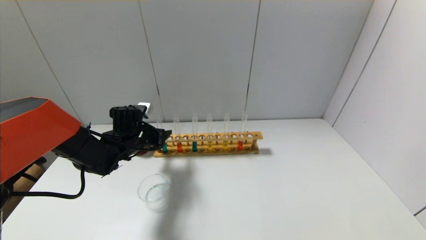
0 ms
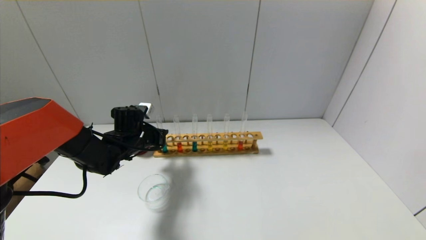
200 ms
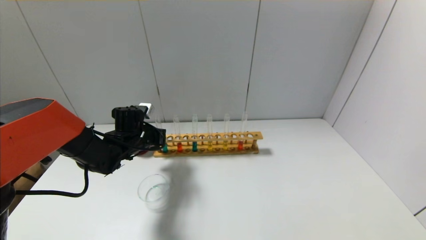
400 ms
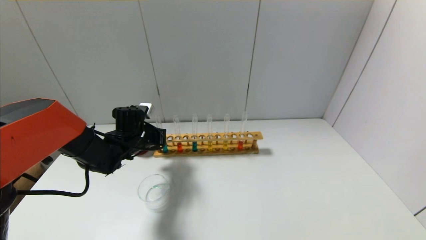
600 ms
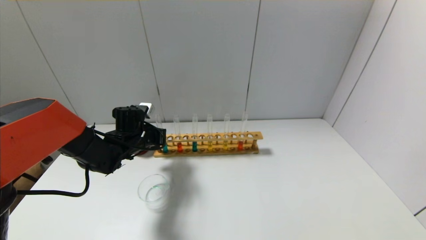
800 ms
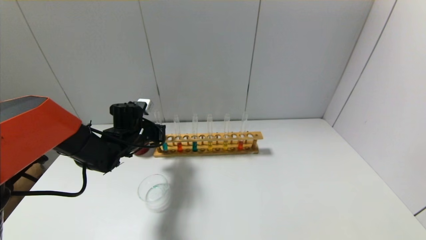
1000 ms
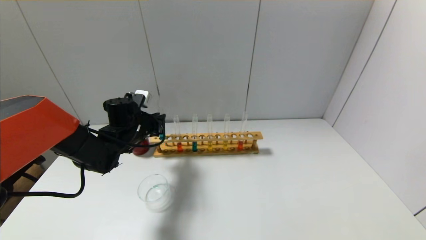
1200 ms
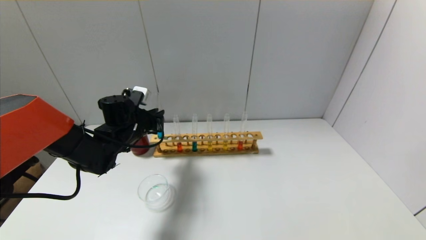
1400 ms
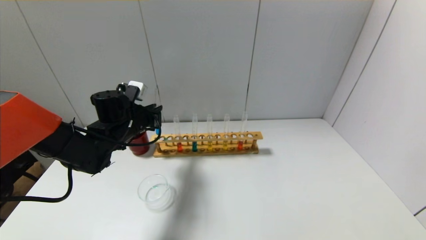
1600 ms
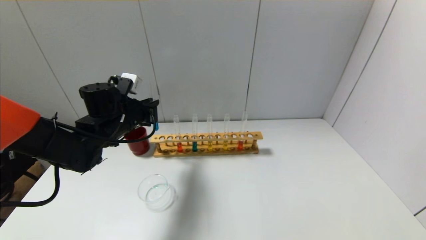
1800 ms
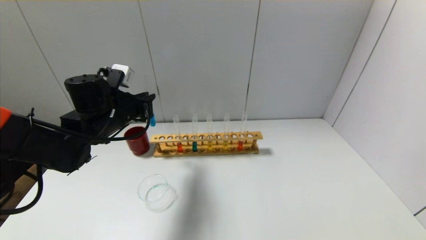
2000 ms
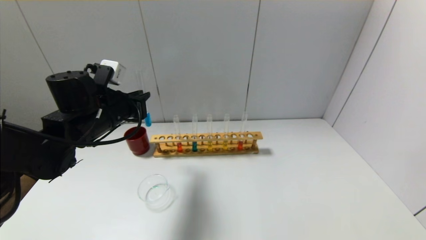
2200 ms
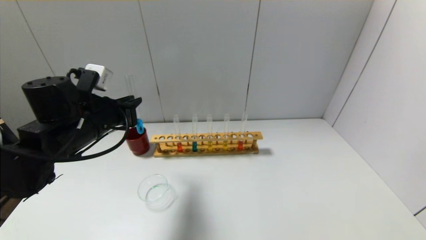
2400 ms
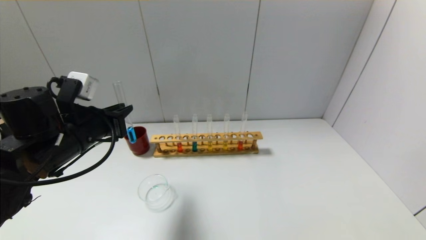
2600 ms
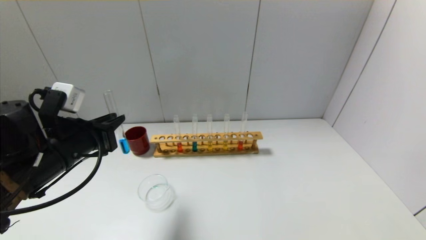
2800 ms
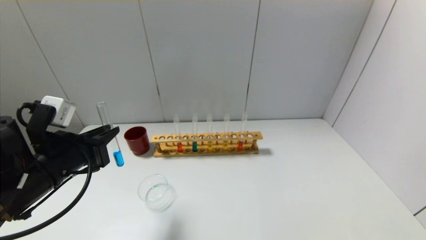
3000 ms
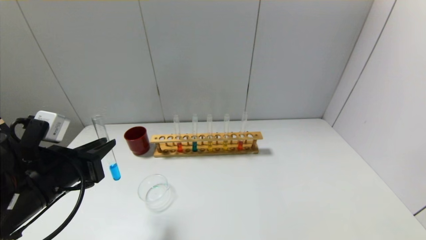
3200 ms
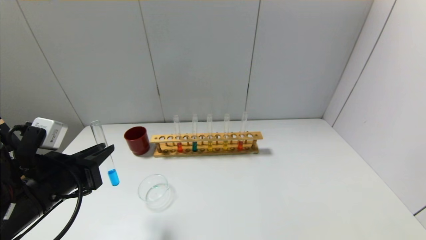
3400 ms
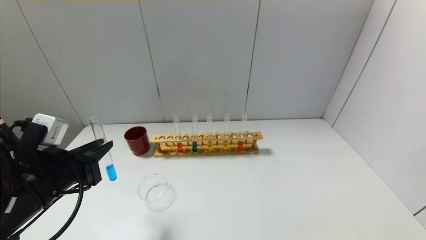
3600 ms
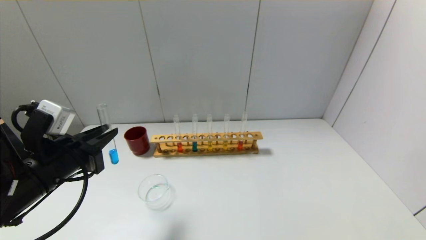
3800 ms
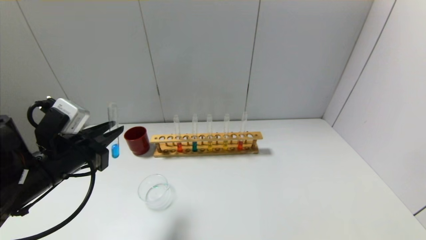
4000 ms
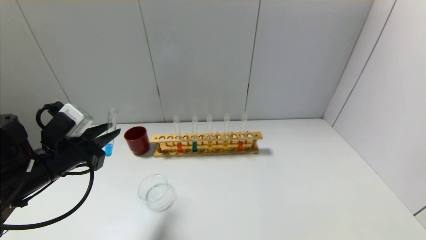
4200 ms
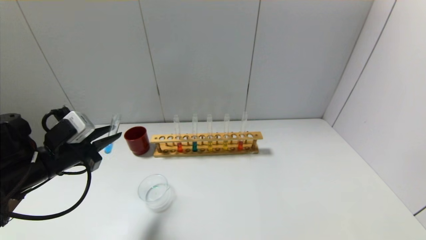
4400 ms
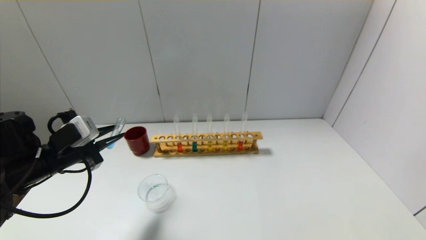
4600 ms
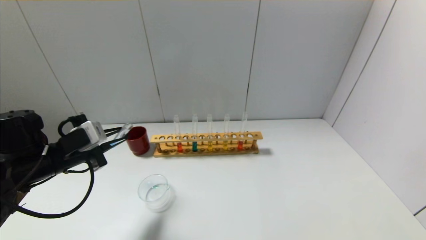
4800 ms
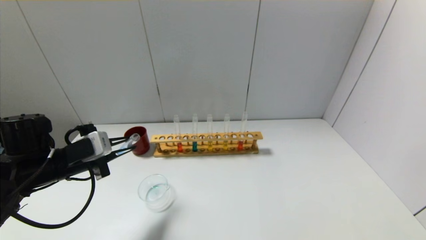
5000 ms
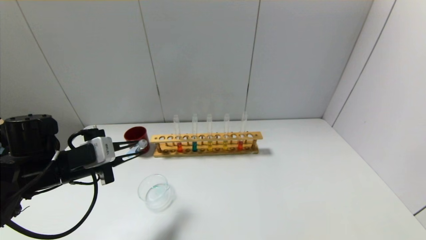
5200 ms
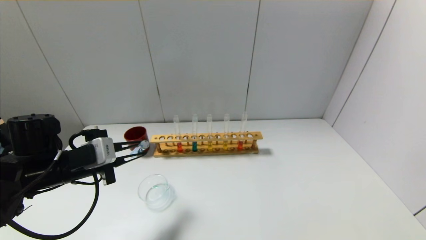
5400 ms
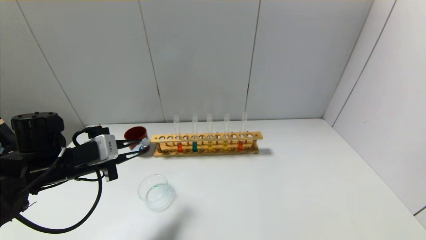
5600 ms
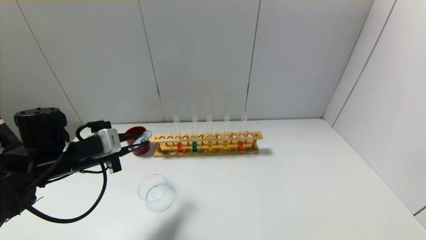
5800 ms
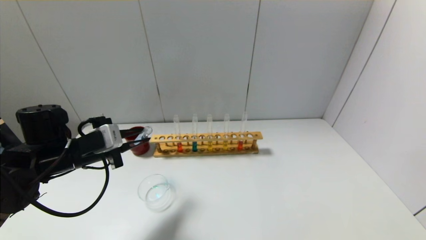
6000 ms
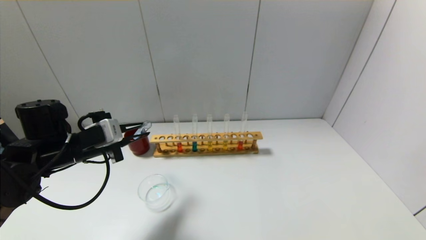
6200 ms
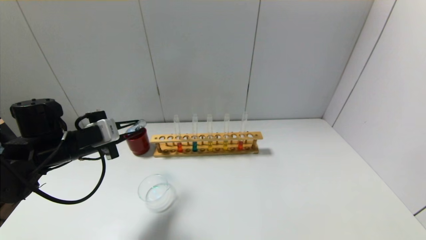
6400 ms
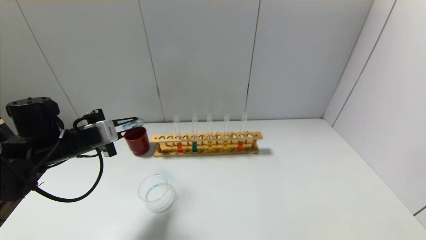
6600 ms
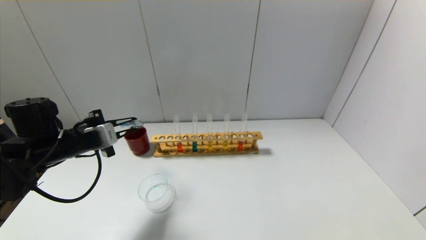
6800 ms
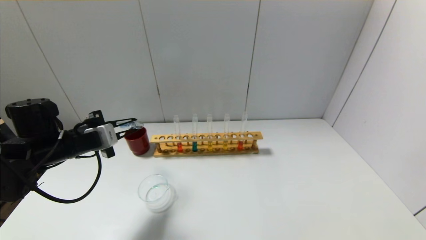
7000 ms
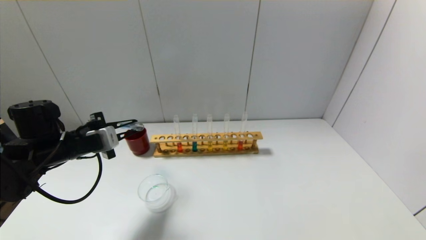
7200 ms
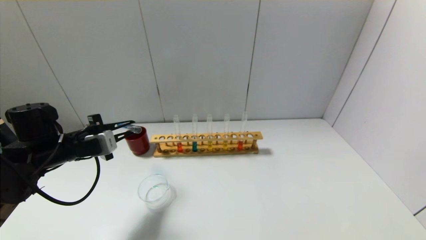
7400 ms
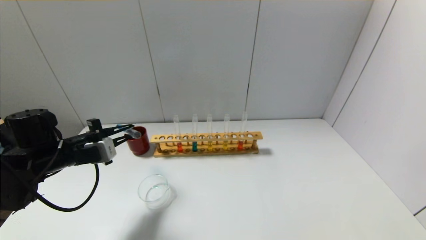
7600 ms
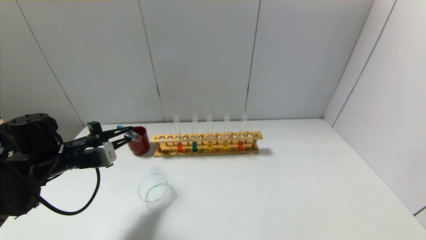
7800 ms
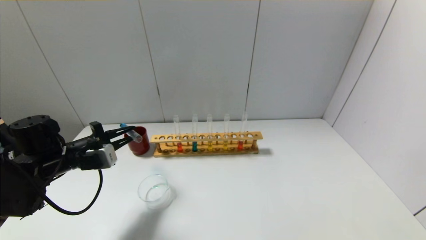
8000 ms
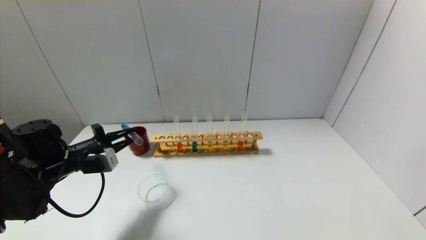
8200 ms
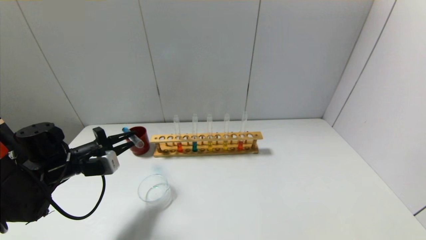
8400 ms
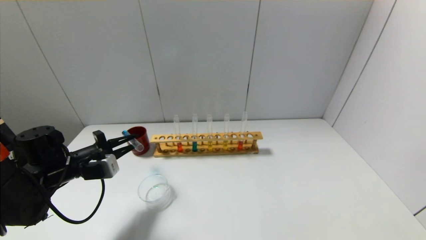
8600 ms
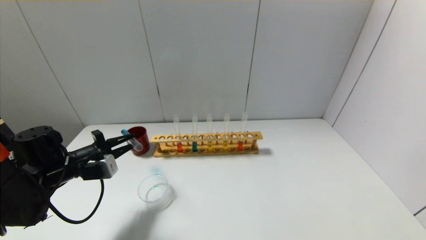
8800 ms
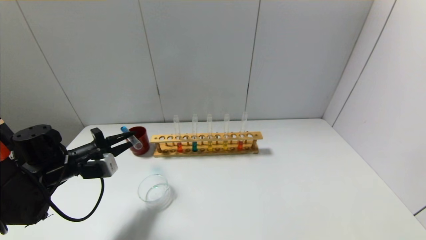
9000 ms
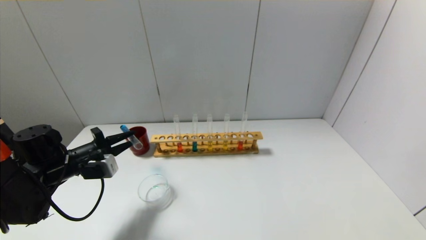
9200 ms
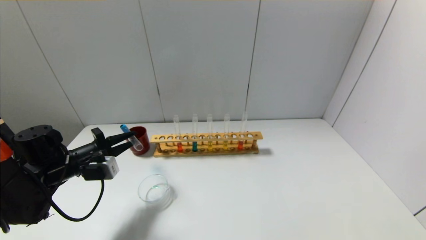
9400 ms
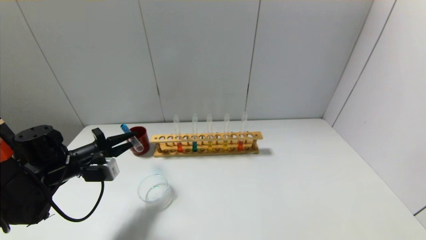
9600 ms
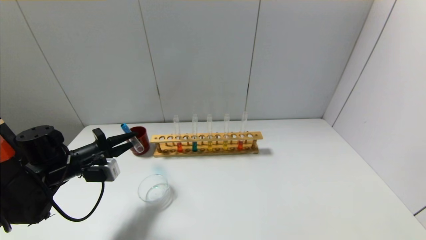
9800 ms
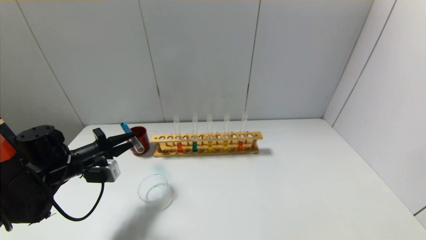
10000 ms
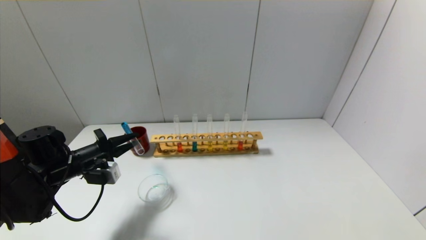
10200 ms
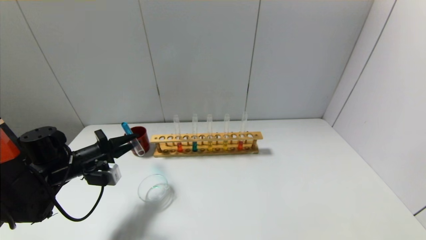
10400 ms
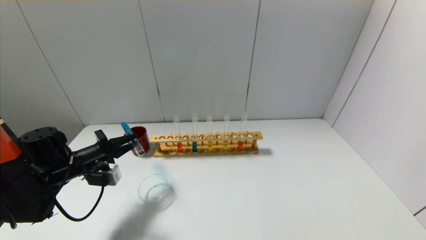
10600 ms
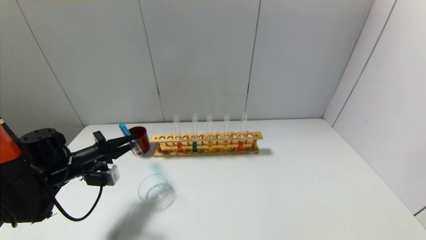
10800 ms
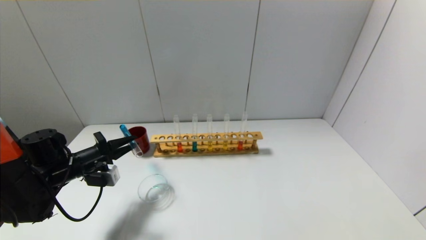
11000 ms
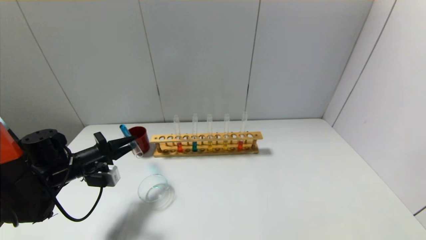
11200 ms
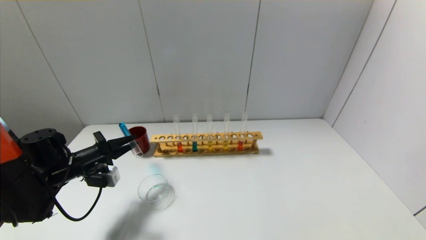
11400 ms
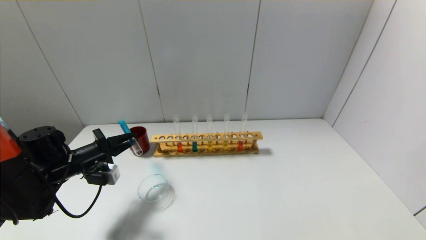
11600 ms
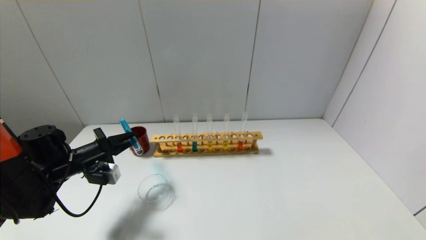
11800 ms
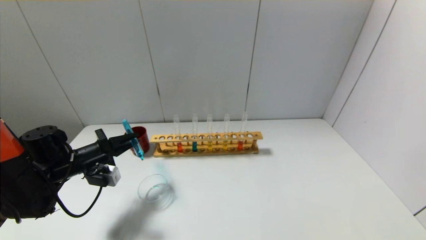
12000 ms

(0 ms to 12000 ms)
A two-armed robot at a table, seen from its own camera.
0 ms - 1600 ms: The left gripper is displaced upward by about 5 cm, and closes its fingers.
1600 ms - 3000 ms: The left gripper travels backward by approximately 15 cm.
3000 ms - 4400 ms: The left gripper changes place by about 5 cm.
7600 ms - 10400 ms: The grippers stay close to where they were, moving slightly.
10400 ms - 12000 ms: The grippers make only small movements.

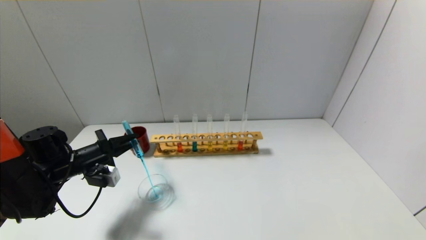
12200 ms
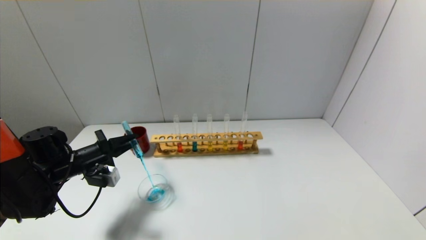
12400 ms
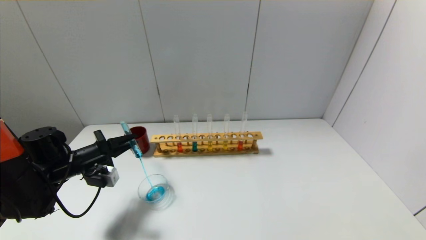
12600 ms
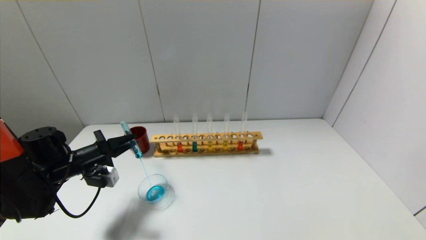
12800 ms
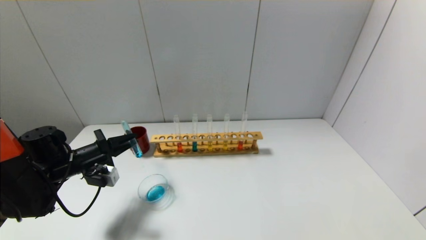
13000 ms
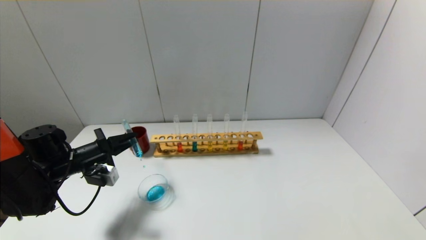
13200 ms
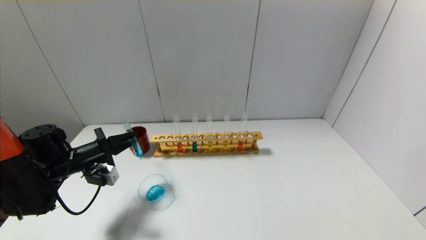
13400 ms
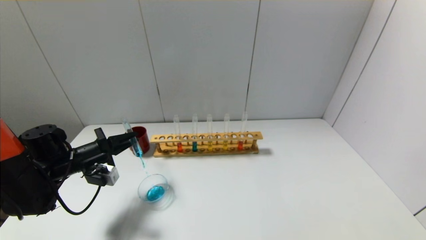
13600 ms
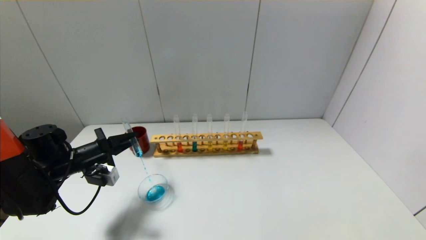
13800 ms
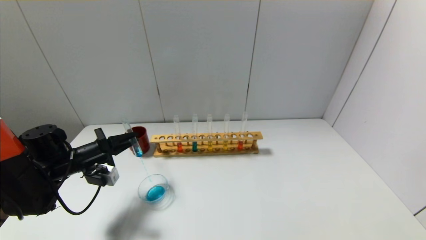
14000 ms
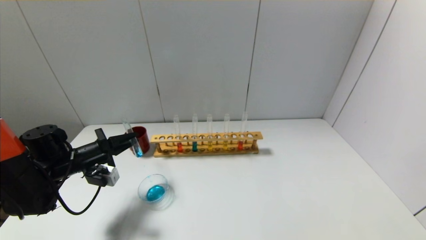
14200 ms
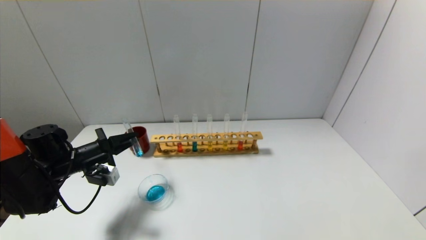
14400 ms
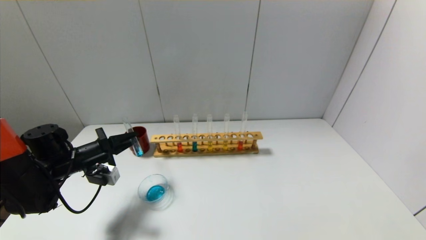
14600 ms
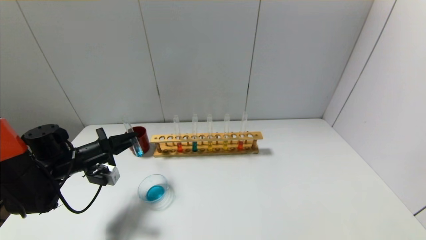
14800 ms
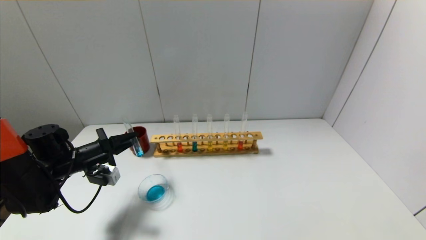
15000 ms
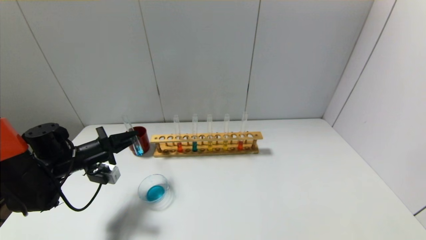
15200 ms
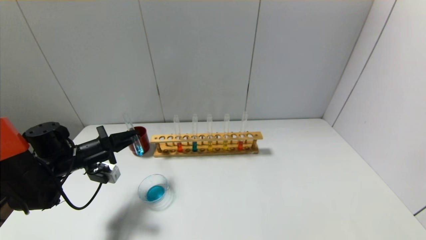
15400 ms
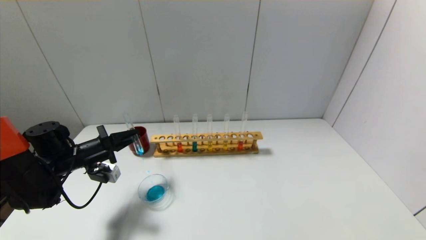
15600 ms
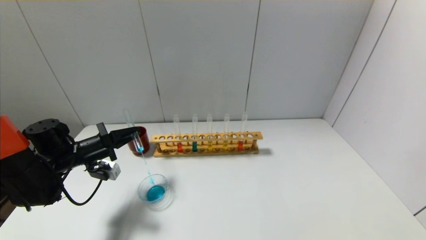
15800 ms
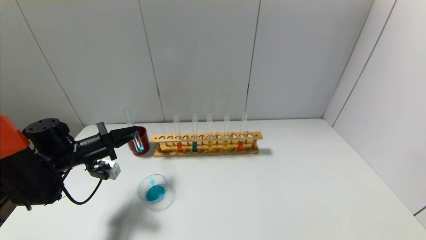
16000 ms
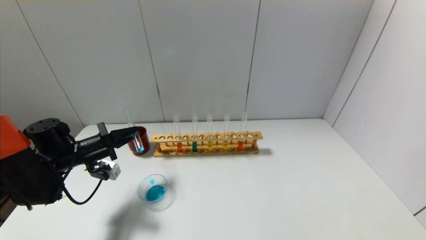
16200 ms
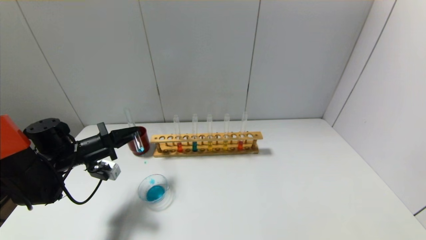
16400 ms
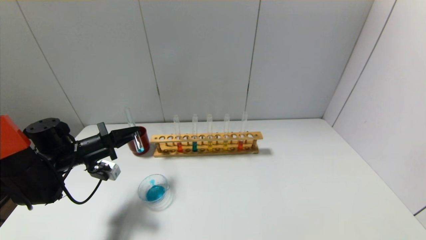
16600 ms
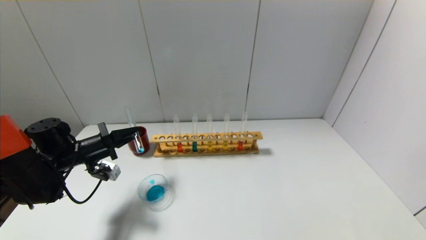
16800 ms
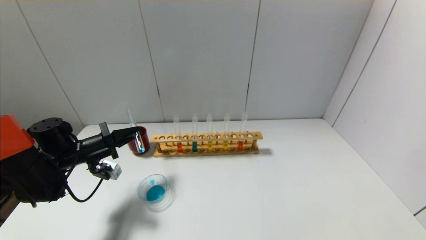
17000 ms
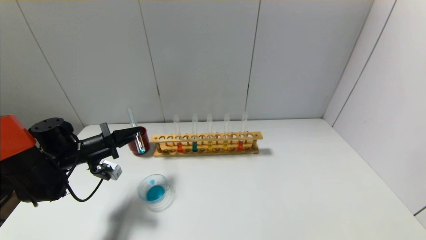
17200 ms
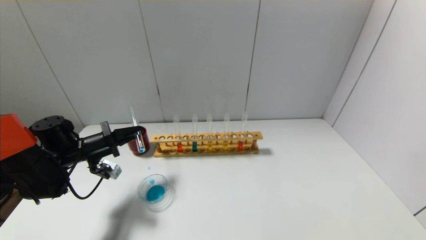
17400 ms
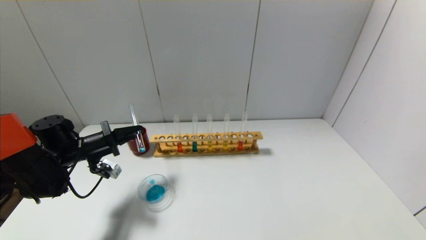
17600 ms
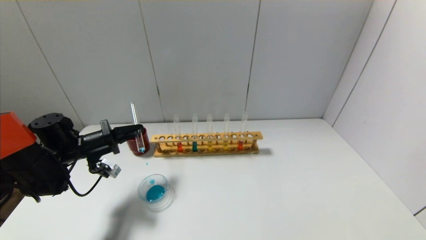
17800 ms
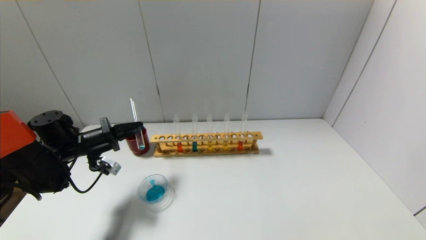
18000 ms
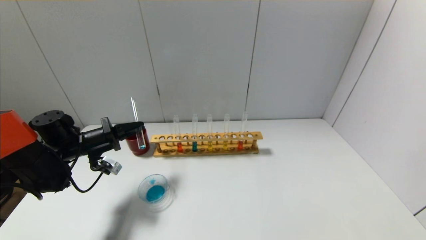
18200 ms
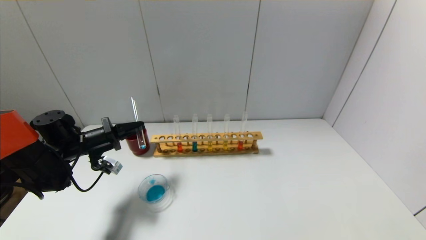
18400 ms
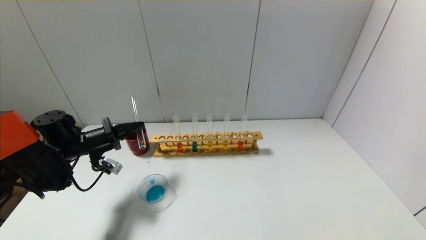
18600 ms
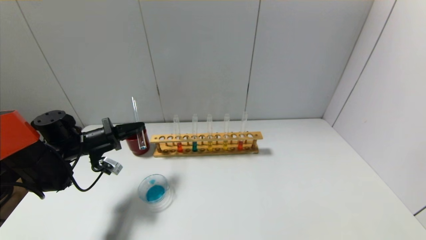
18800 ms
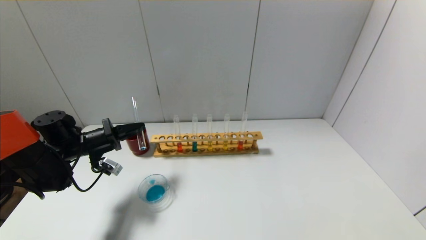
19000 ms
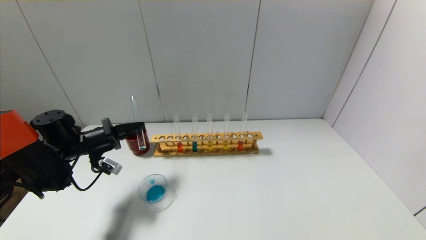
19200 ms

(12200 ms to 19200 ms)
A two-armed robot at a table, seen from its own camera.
12200 ms - 15000 ms: The two grippers keep their place.
15000 ms - 17800 ms: The grippers make only small movements.
17800 ms - 19200 ms: The grippers move only a little.
